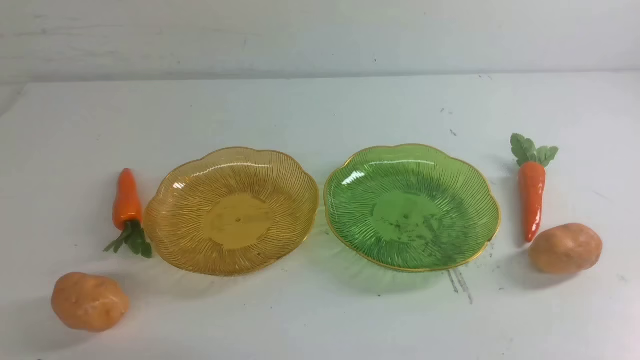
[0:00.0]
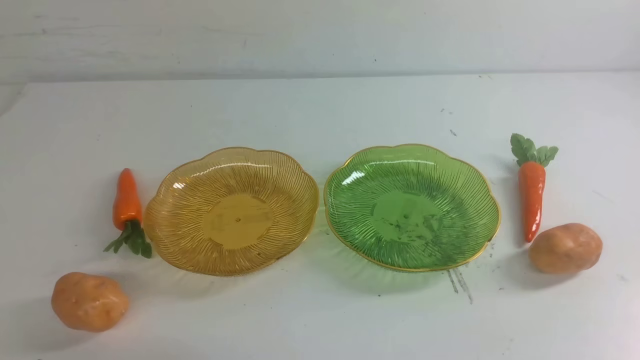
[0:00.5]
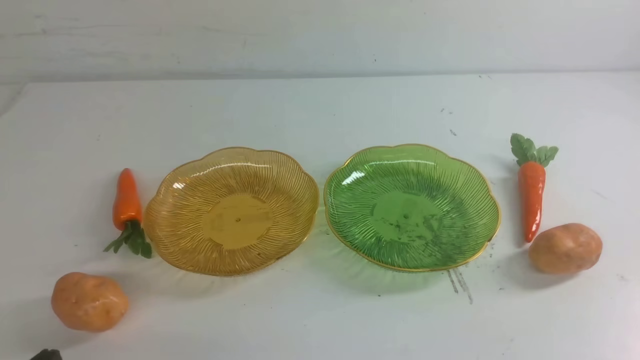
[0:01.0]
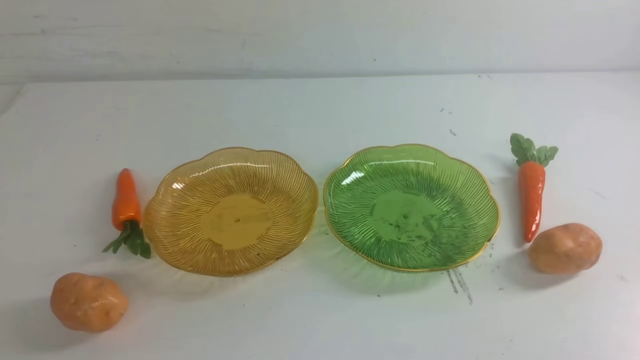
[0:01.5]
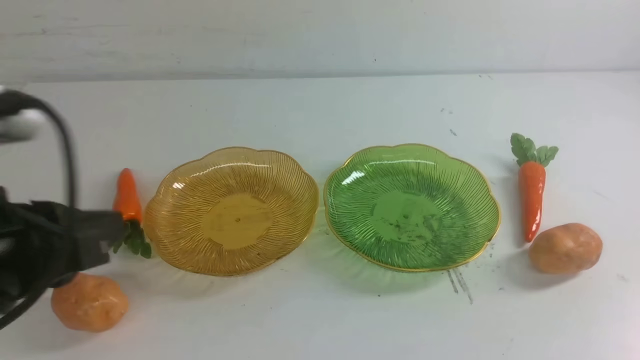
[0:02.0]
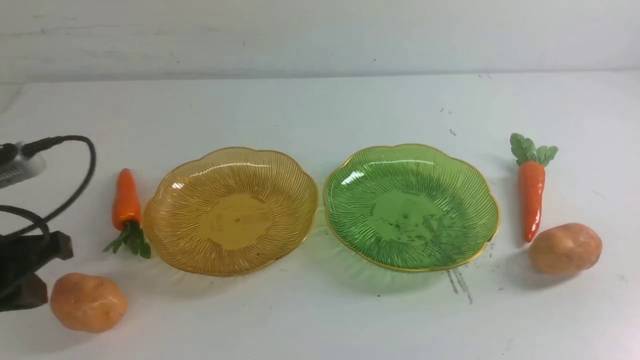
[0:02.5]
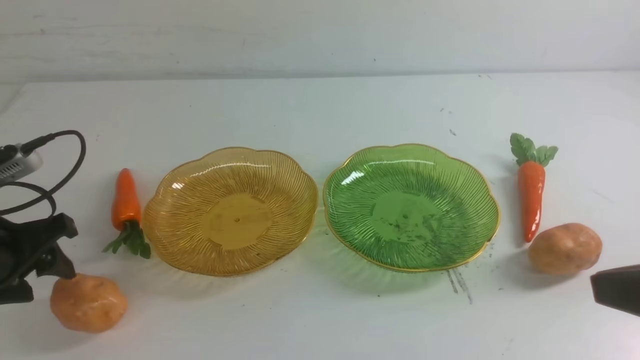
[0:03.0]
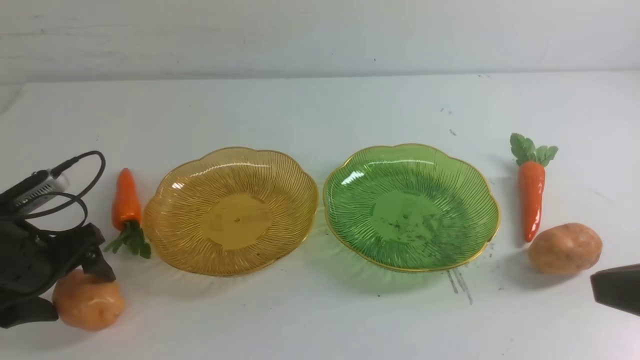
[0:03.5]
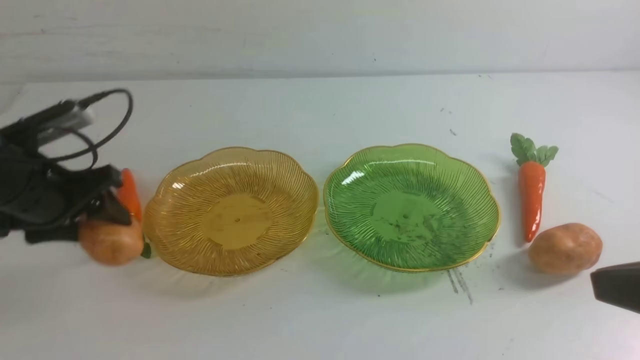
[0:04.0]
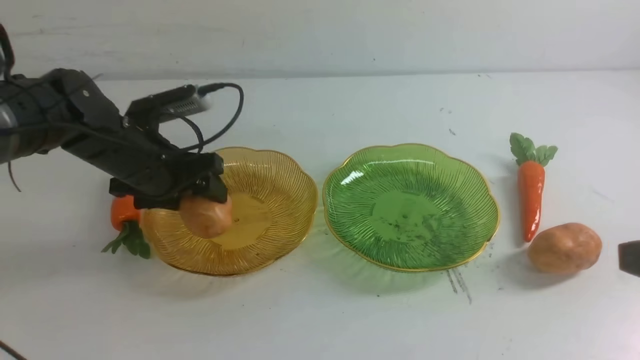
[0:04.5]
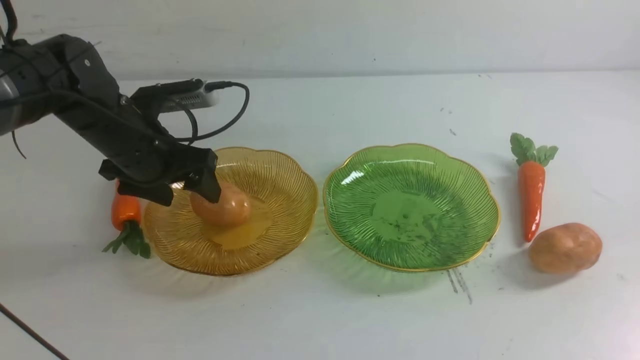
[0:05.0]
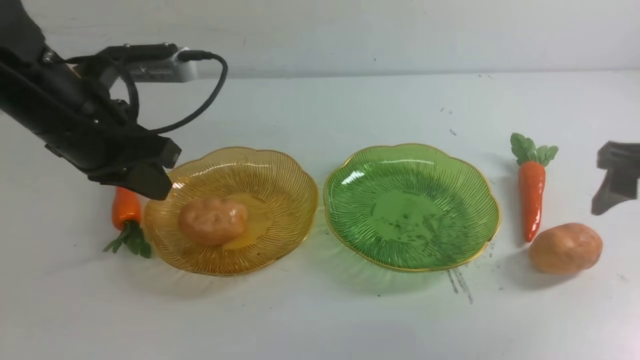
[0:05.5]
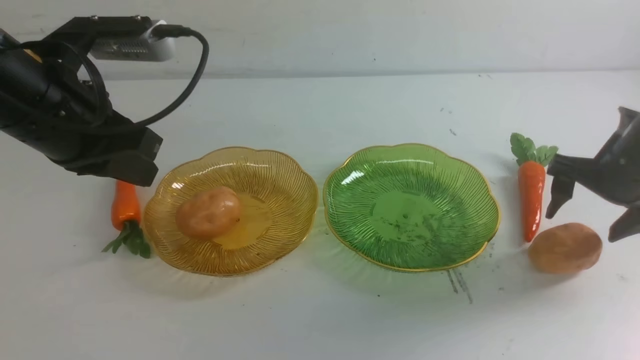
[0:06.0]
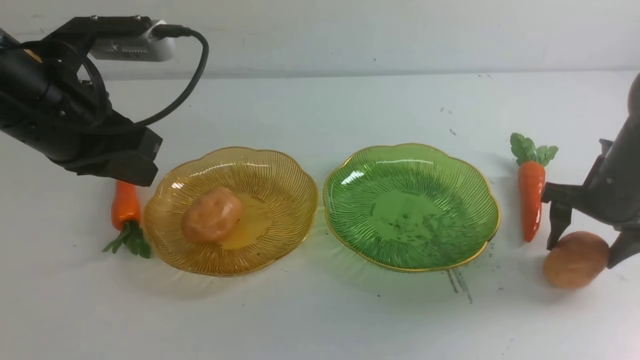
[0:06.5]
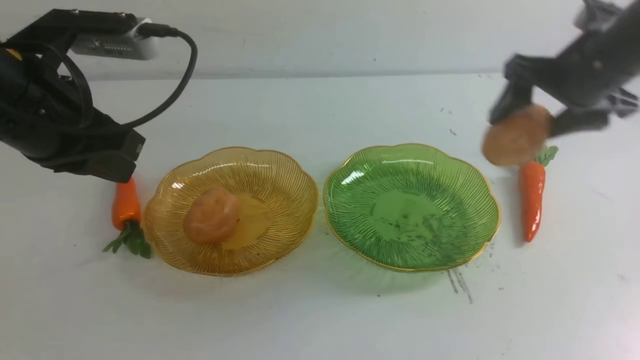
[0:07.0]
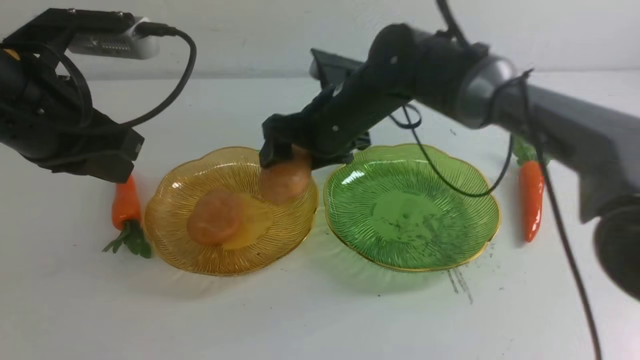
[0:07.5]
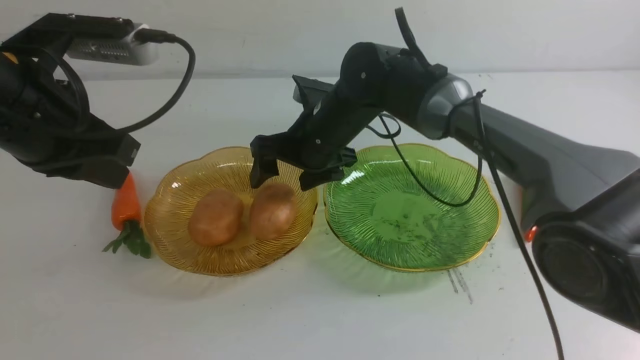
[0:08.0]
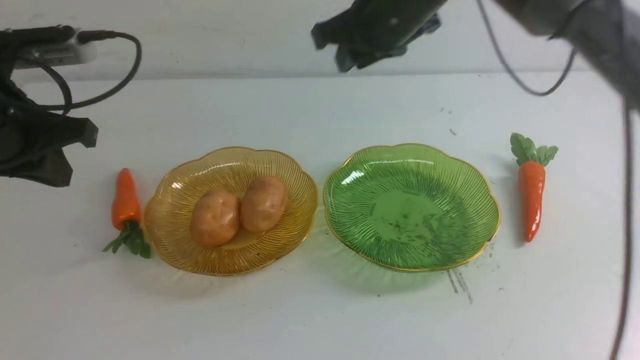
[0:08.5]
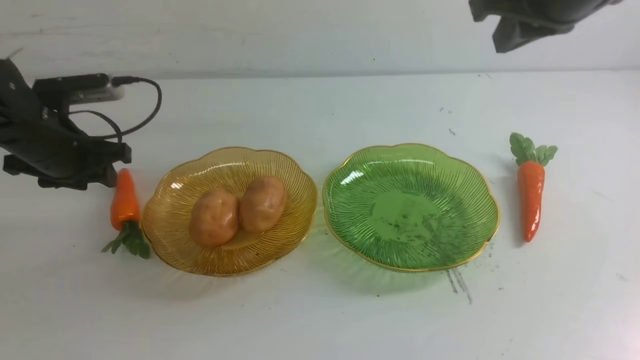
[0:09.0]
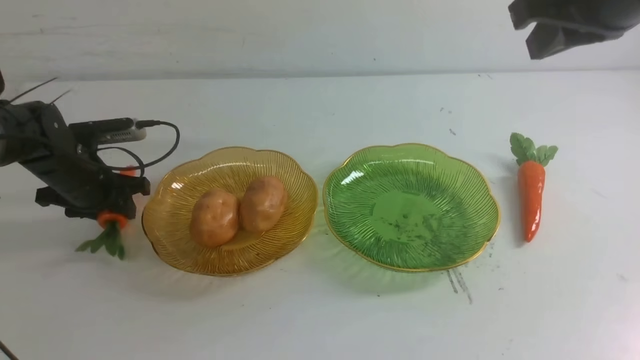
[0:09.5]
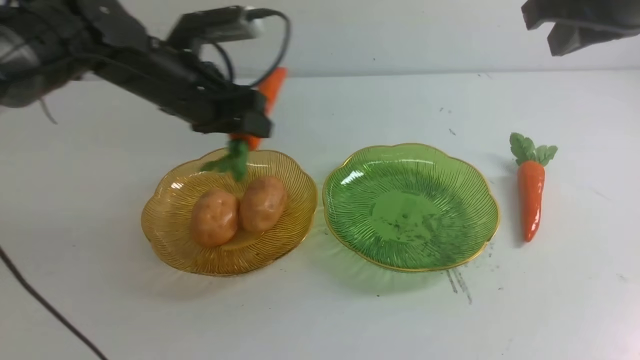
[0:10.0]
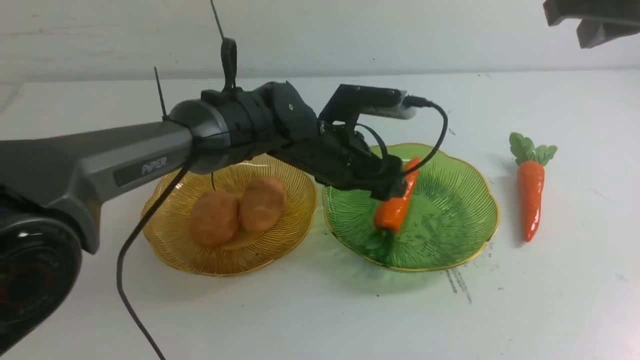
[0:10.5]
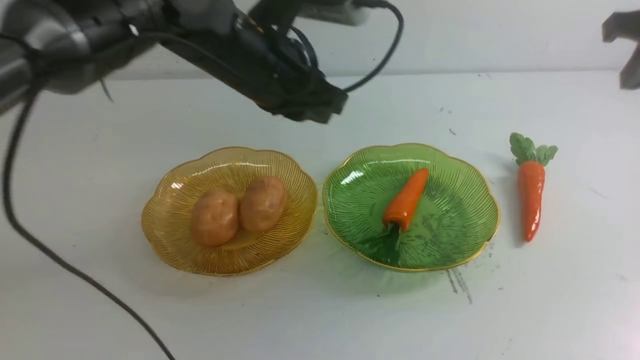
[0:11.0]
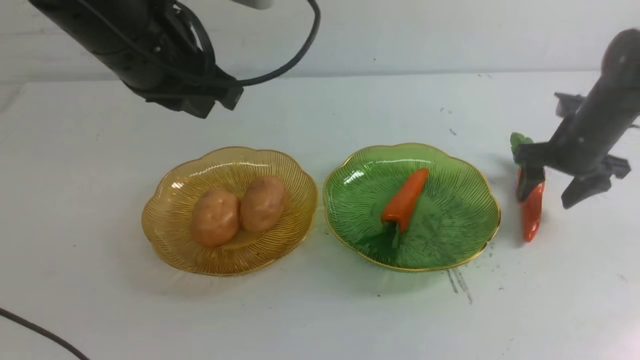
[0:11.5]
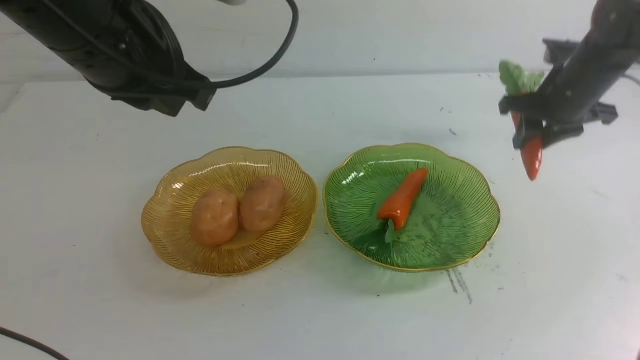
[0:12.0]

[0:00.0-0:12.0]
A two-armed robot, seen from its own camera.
Step, 0:00.0 to 0:06.5: Grab a potato with your left arm and put it on the left plate.
Step, 0:07.0 to 0:08.0: Grab a potato with your right arm and put it on the left plate.
Step, 0:08.5 to 0:10.5: use the left arm to grab a carrot and put it into the right plate.
0:00.0 to 0:02.0: The left gripper travels upward and forward by some 20 cm.
0:02.0 to 0:04.0: The right gripper goes some 10 cm upward and forward, while the left gripper goes about 20 cm forward and downward, and opens.
0:04.0 to 0:06.0: The left gripper moves upward and to the right, roughly 15 cm, and closes up. Meanwhile the right gripper goes some 25 cm forward and downward, and opens up.
0:06.0 to 0:08.0: The right gripper travels to the left by roughly 30 cm.
0:08.0 to 0:10.0: The left gripper shifts some 20 cm to the right, forward and downward, and opens. Meanwhile the right gripper heads to the right, upward and backward, covering approximately 35 cm, and closes.
0:10.0 to 0:12.0: The right gripper moves downward and forward, roughly 20 cm, and opens up. The left gripper goes about 20 cm upward, backward and to the left, and closes.

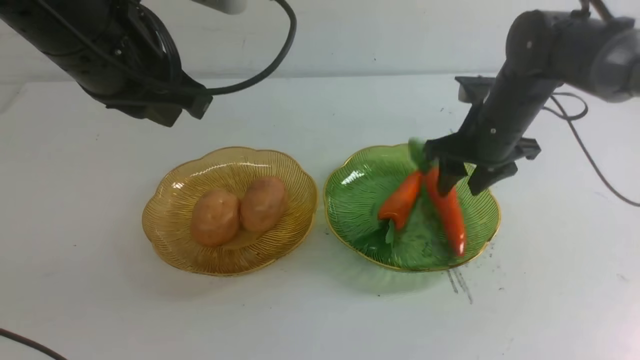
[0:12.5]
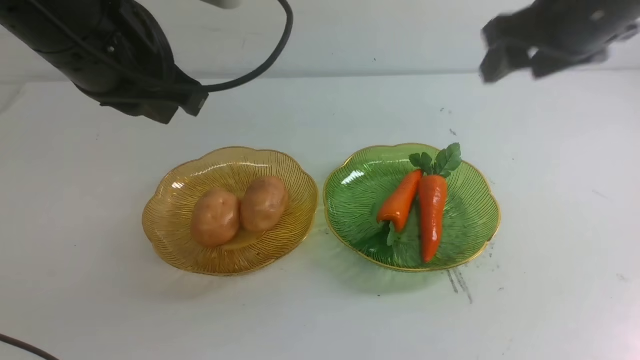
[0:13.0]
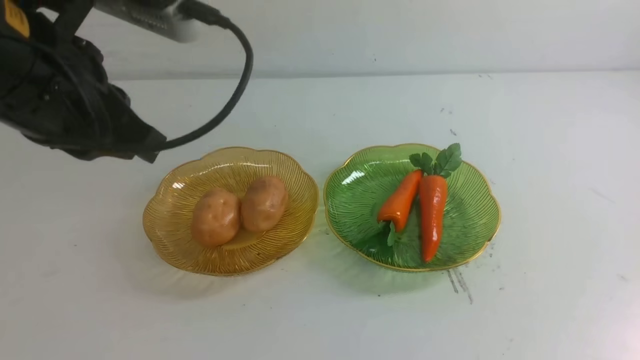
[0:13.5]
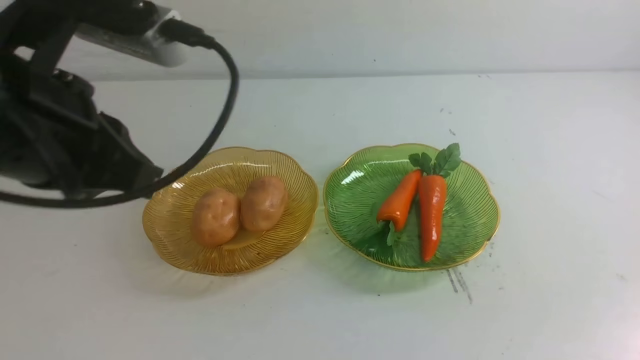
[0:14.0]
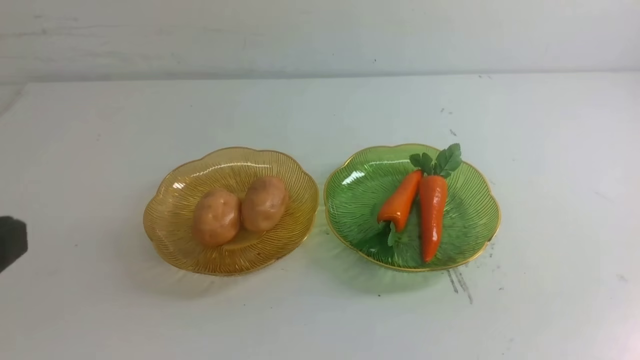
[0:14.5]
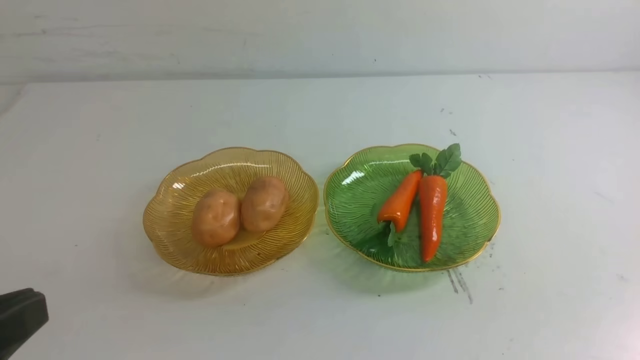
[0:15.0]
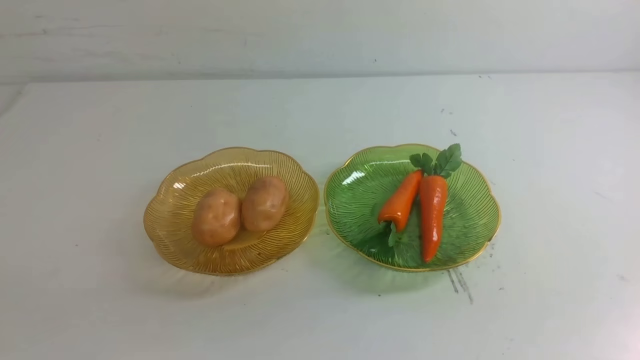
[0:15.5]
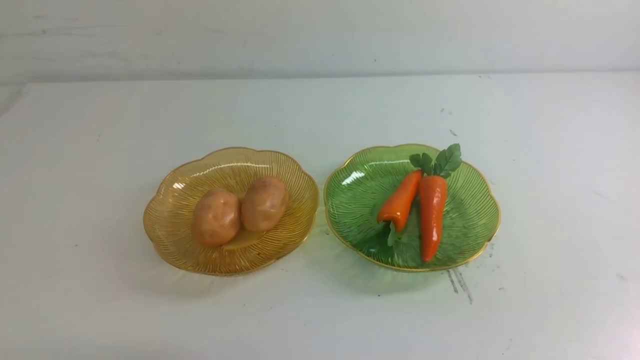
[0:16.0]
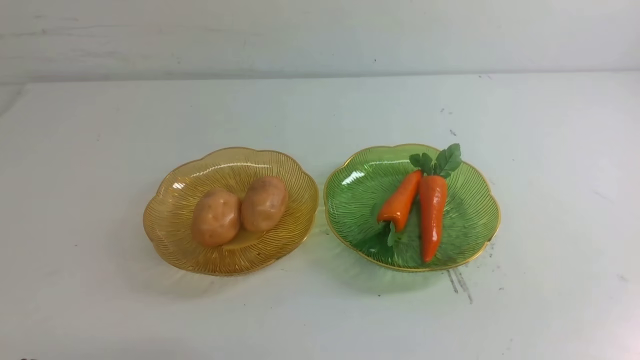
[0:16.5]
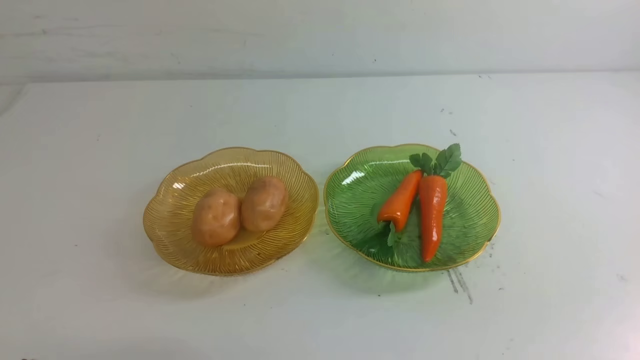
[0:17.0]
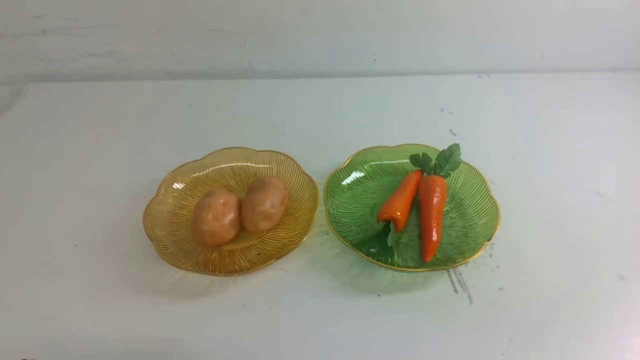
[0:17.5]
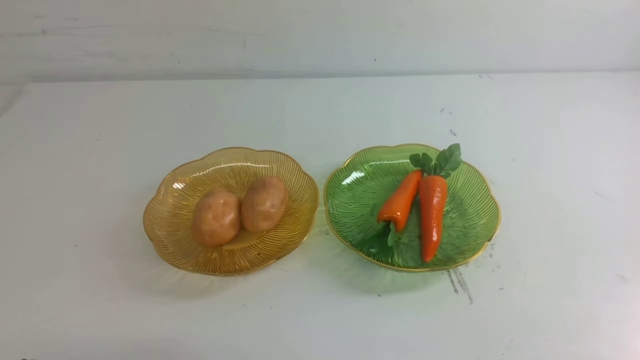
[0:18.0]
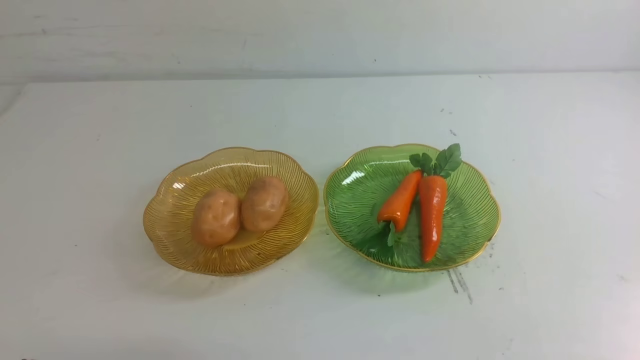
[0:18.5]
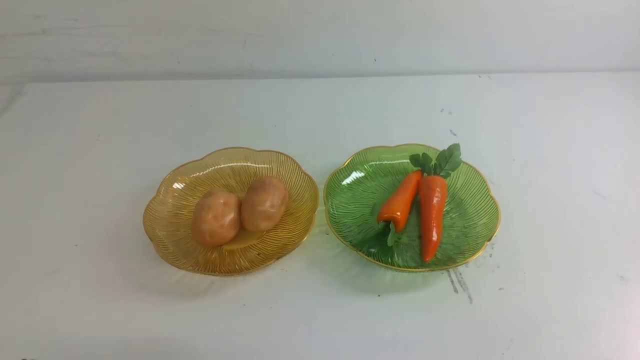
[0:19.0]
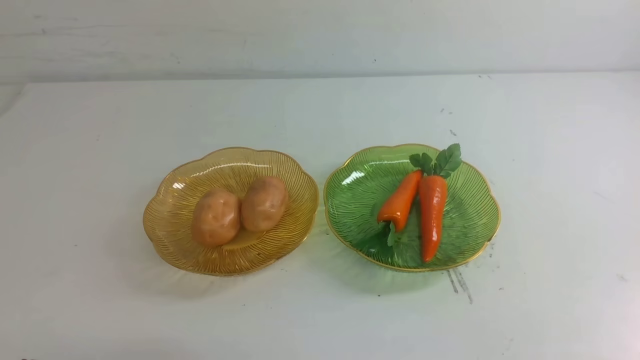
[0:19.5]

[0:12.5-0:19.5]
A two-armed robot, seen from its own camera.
0:12.5 to 0:14.5: The left gripper moves backward, about 25 cm. The right gripper moves backward, roughly 40 cm, and closes.
